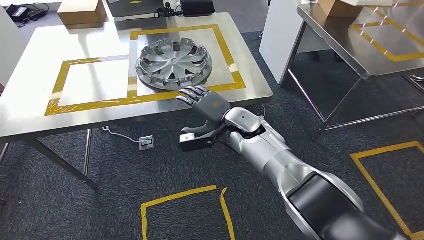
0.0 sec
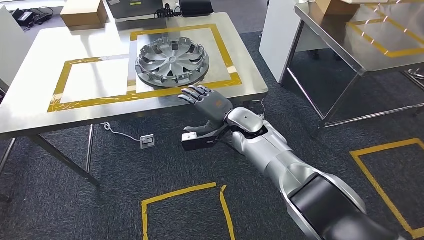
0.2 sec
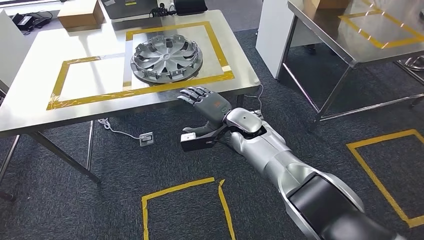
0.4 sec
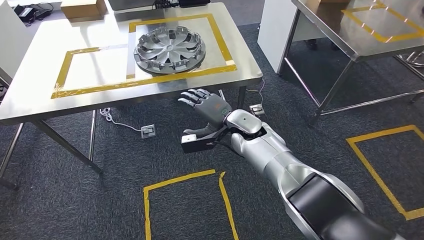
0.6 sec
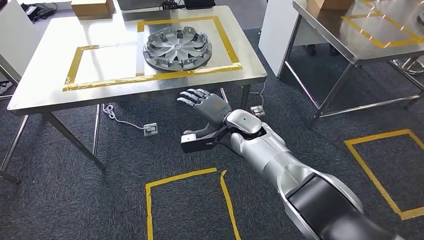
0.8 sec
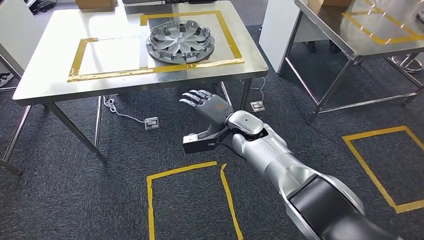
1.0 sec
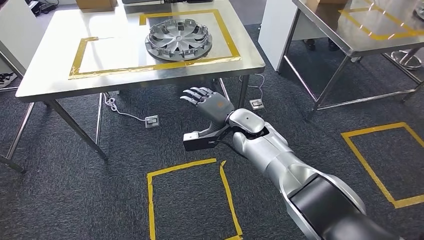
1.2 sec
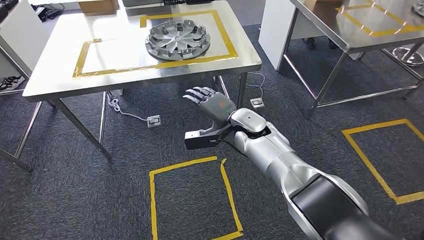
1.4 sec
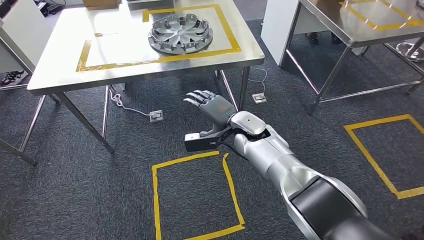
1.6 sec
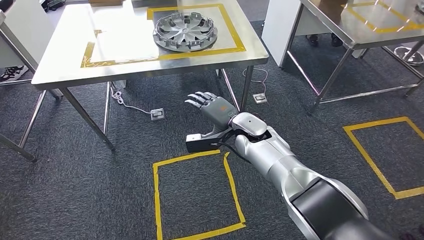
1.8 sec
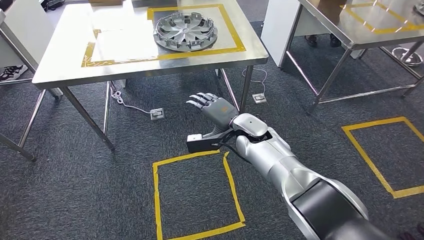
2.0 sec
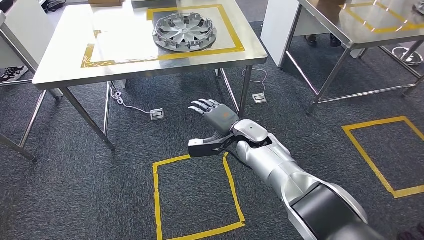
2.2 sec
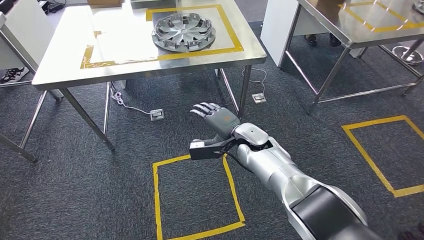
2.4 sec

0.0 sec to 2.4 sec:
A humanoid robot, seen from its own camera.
Step, 0.0 sec to 2.4 sec: Return to the initial position at the shelf.
